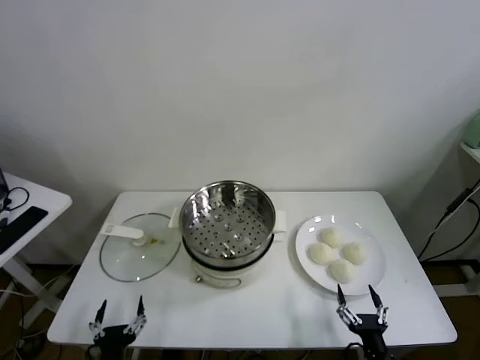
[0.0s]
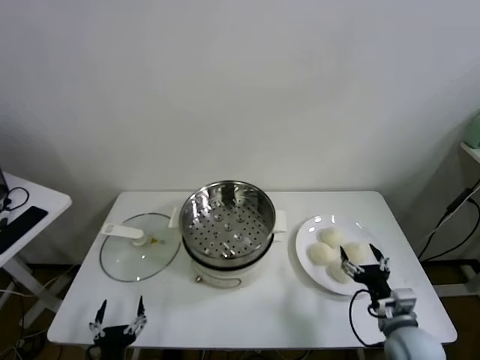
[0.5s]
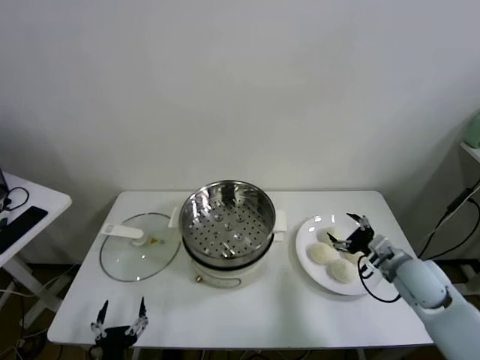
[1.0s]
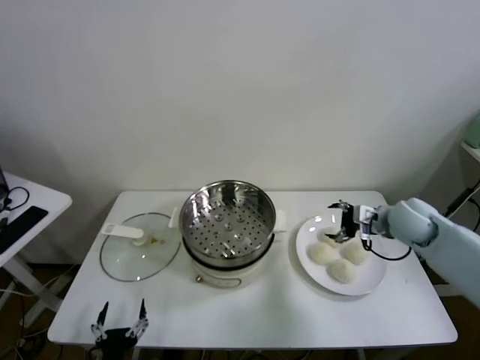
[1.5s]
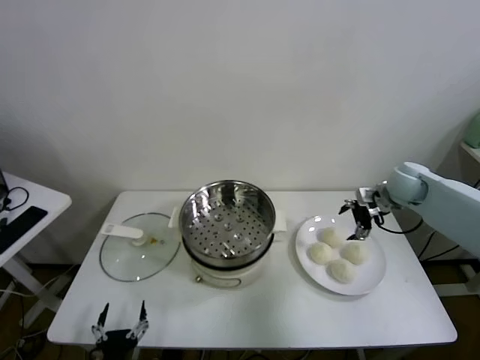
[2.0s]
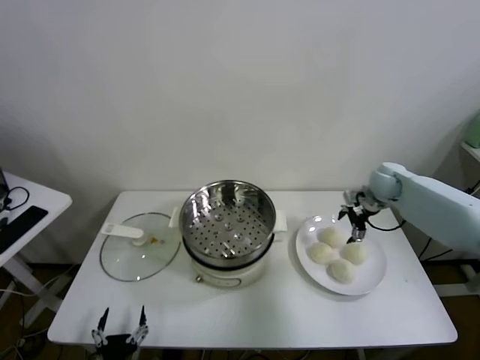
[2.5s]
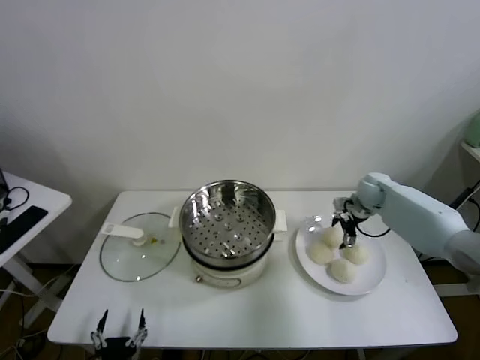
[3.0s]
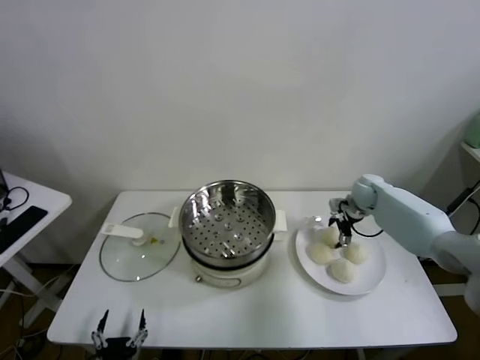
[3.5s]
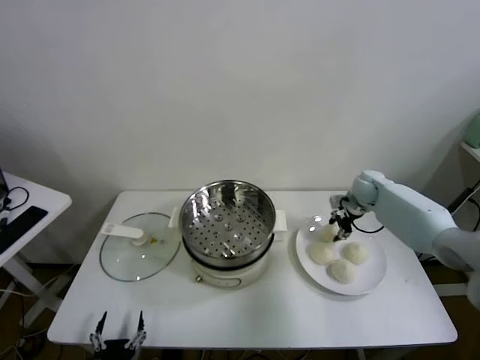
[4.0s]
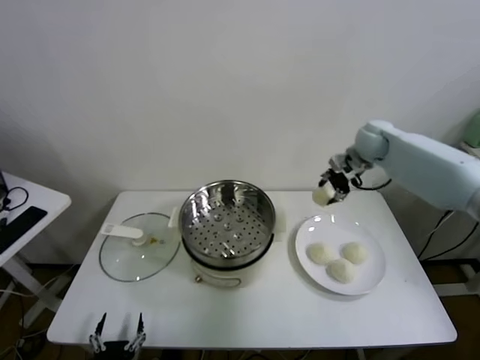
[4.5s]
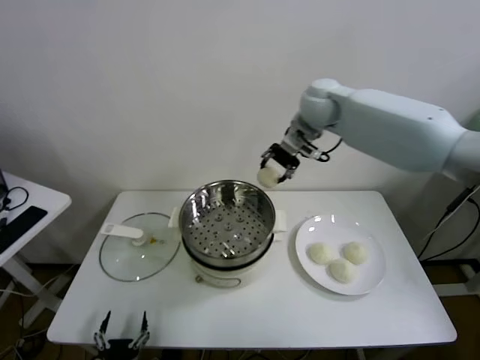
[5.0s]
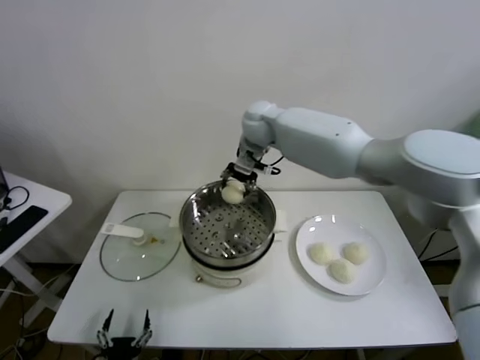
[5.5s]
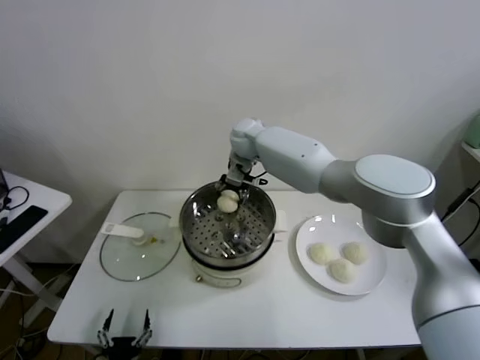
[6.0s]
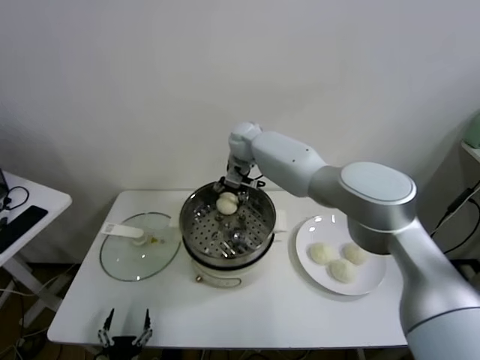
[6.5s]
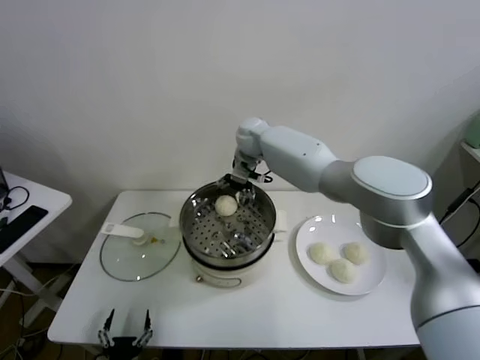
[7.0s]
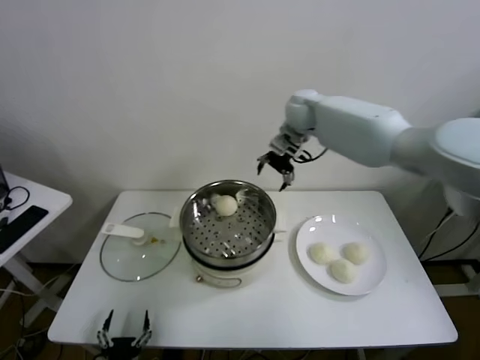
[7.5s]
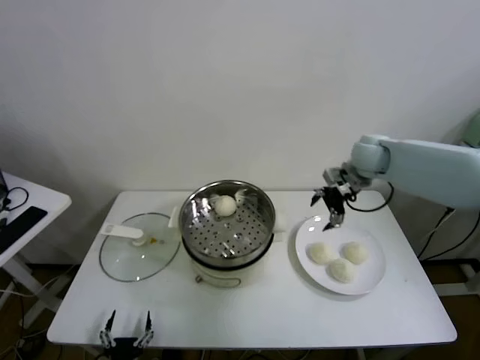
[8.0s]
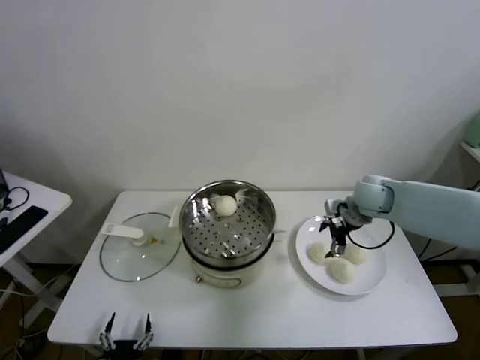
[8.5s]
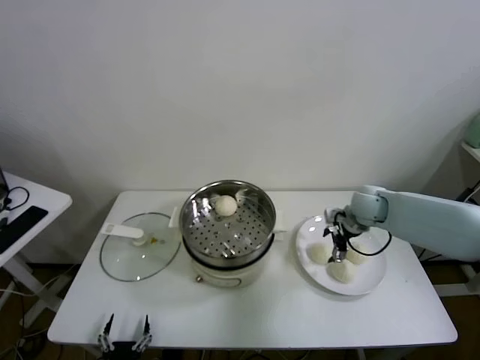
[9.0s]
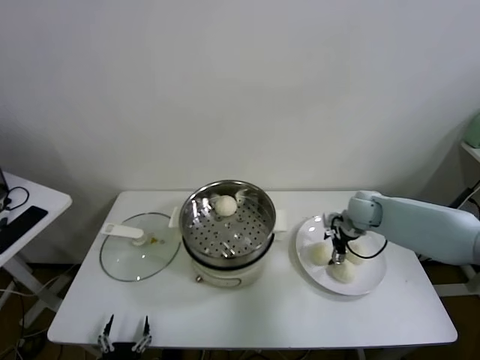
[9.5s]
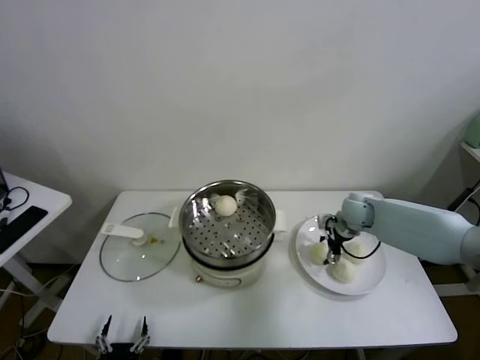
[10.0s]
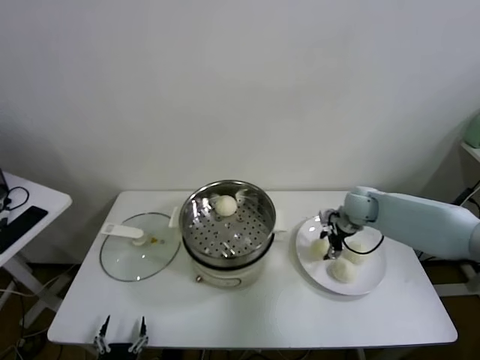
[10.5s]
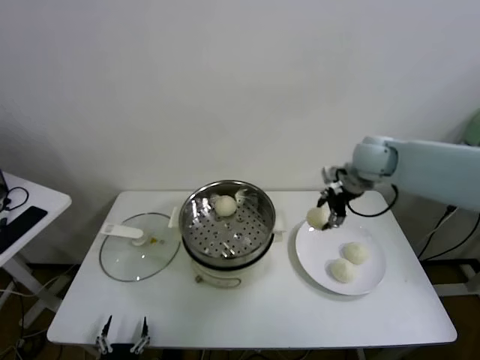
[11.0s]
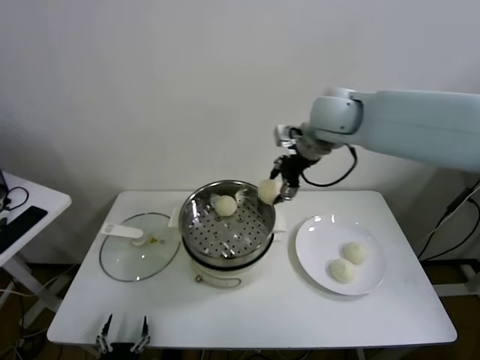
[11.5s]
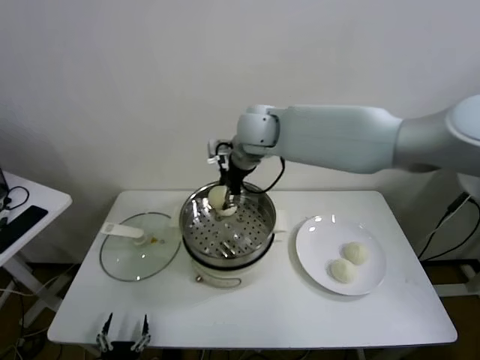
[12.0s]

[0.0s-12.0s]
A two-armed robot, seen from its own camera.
Task of the whole recording: take steamed baozi put them in steamer.
Step, 0.0s to 3.5s: Grasp the baozi in the plate with right gripper.
Step, 4.0s to 6.5s: Place the baozi on the steamer with right gripper.
Step, 7.0s to 10.0s: Grasp the baozi in the plate with right gripper.
2.0s to 4.0s: The right gripper goes approximately 10 cm downward and forward, and closes.
4.0s to 6.0s: The right gripper travels to the left by about 35 cm.
6.0s to 8.0s: The right gripper moves to the right, roughly 30 cm, and opens up.
8.0s to 10.0s: The right gripper shifts some 15 cm downward, and closes.
10.0s to 12.0s: The right gripper is displaced to the left and upward by roughly 35 cm.

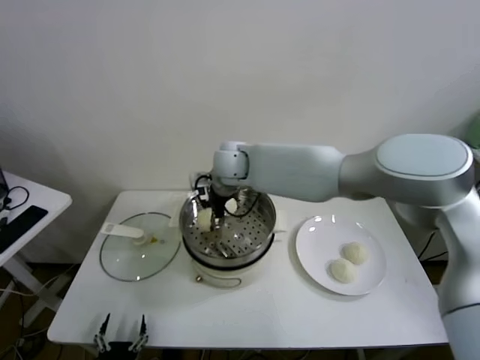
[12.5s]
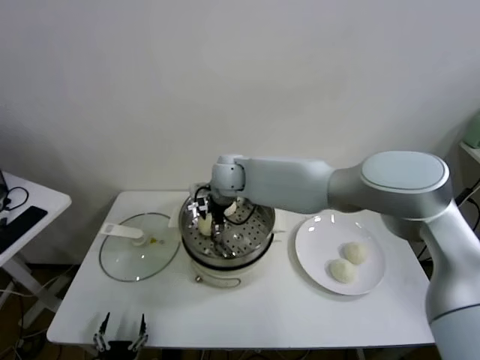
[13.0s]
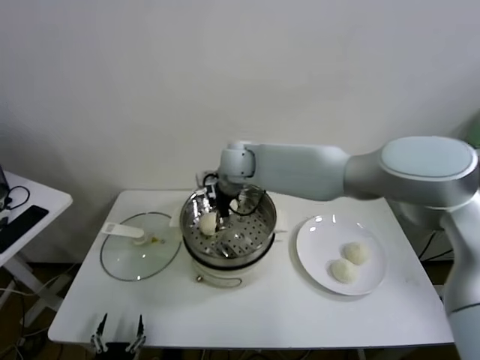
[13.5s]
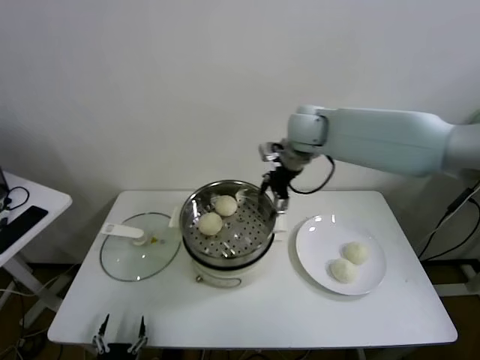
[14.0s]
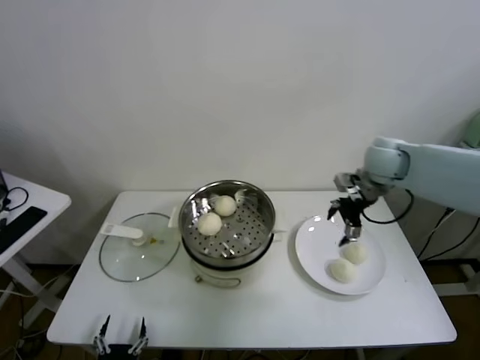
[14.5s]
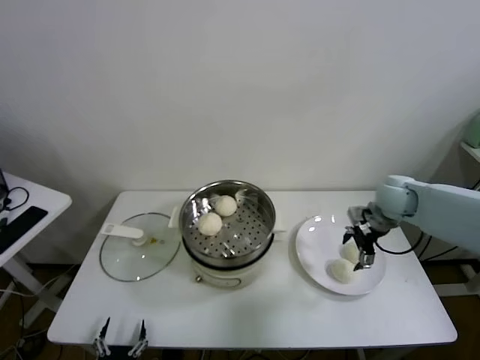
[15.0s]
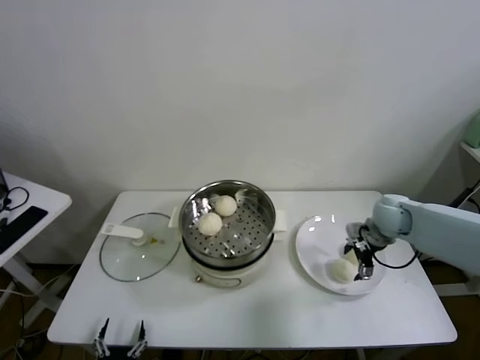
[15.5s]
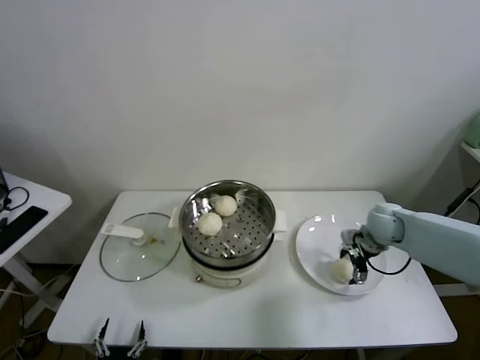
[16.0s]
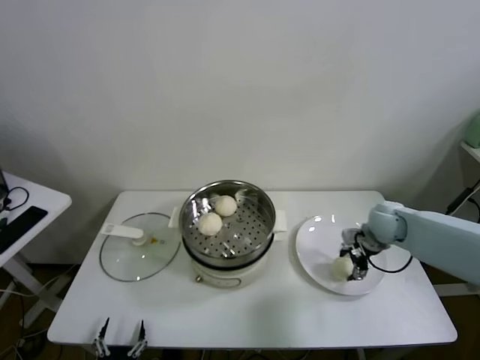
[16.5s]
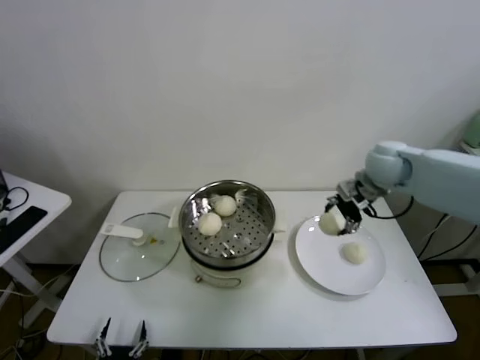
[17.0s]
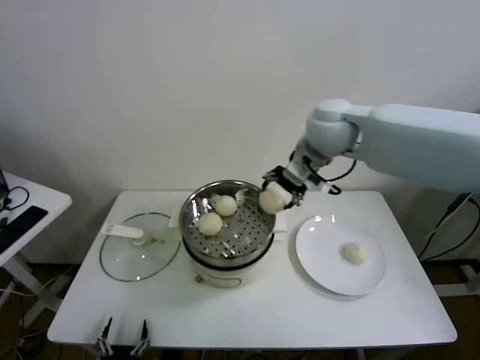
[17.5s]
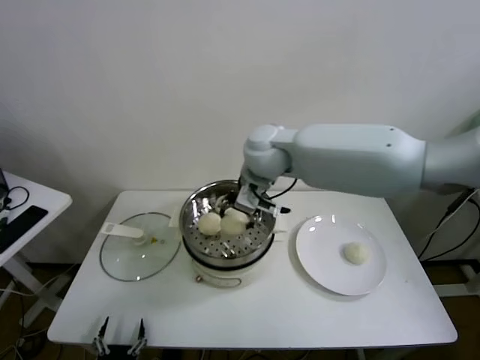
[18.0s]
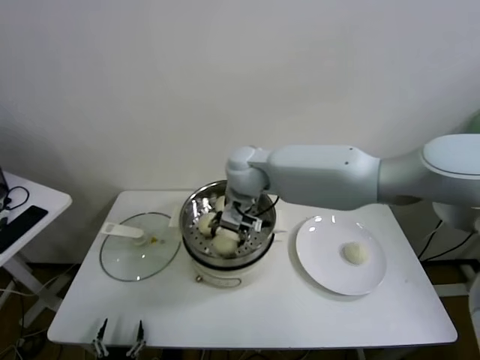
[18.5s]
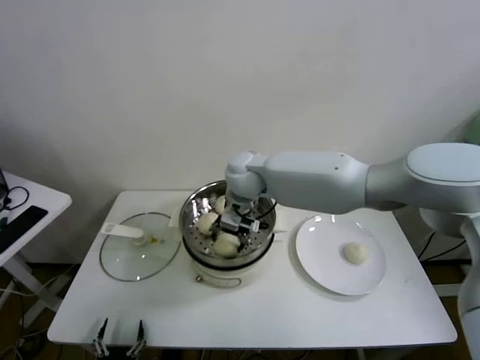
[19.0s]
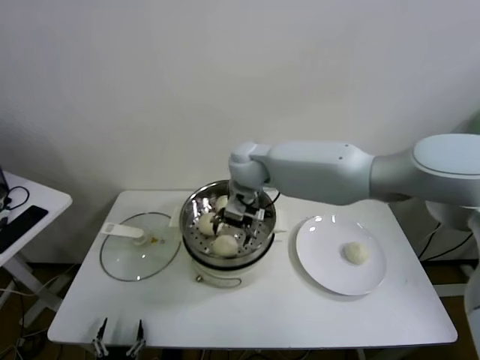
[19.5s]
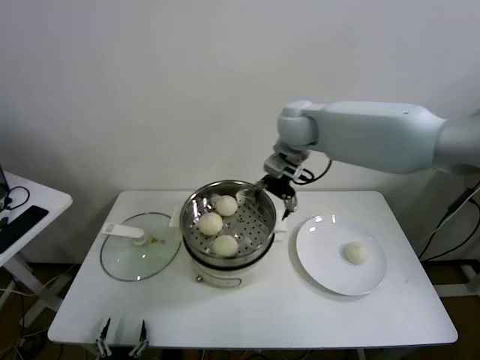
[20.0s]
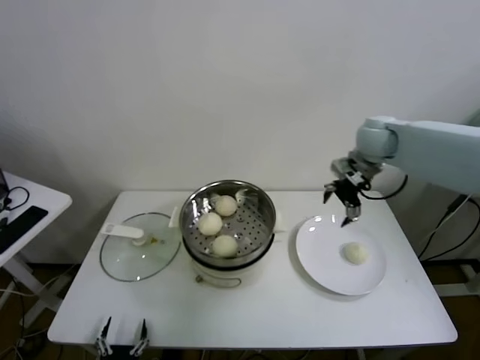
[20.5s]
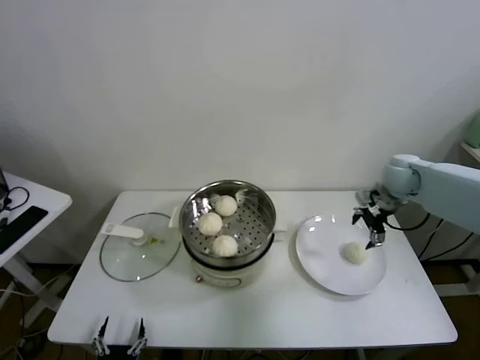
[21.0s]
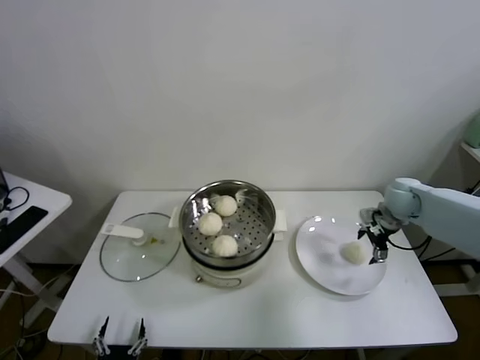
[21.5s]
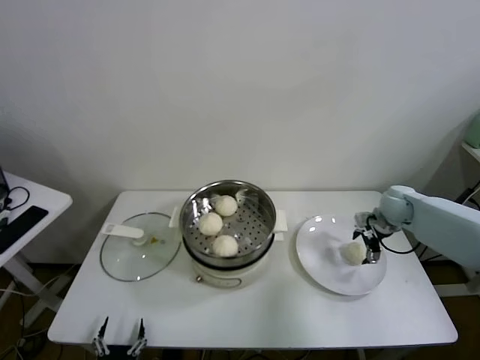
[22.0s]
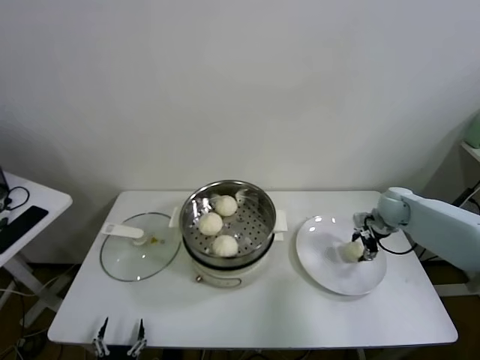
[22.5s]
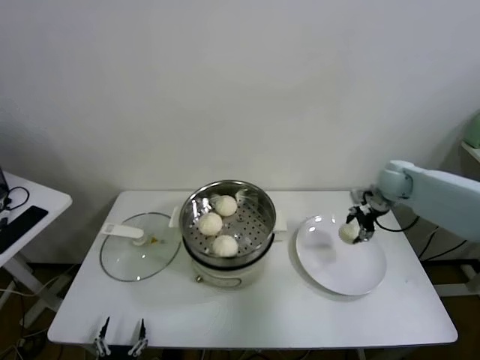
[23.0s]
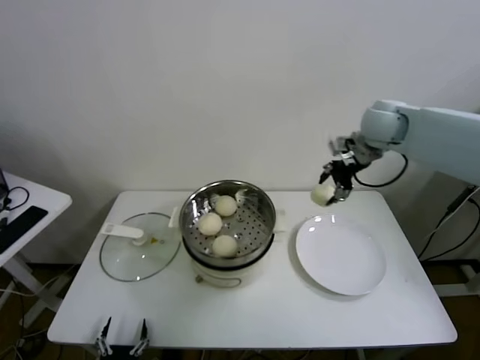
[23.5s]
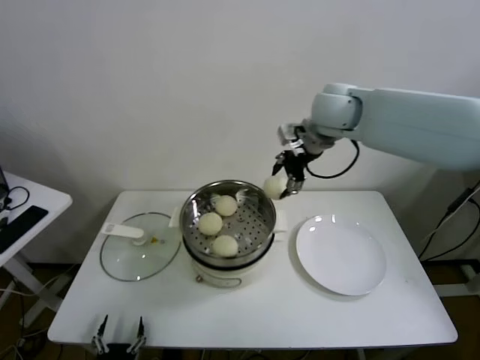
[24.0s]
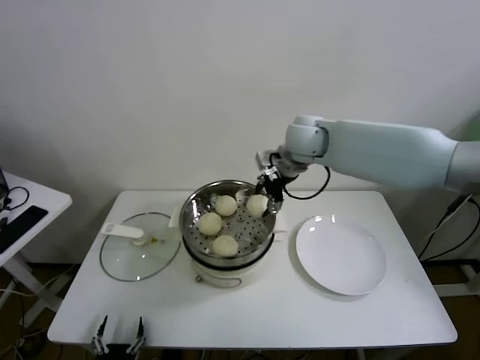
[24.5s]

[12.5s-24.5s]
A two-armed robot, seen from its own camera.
Task of the whole recording: take steamed baozi put them in steamer.
Step, 13.5s to 16.0s: Grasp the baozi in the plate with right gripper.
Step, 16.5s to 19.0s: Place the baozi on the steamer with right gripper.
Step, 19.5s to 22.5s: Grasp the baozi in the plate with right gripper.
12.5s to 14.5s: The right gripper travels to the right by roughly 35 cm, and opens.
14.5s to 16.5s: The right gripper shifts about 15 cm downward, and closes up.
16.5s to 18.5s: The right gripper heads to the left and upward, covering approximately 40 cm.
18.5s to 20.5s: The right gripper moves to the right, roughly 30 cm, and opens up.
20.5s to 22.5s: The right gripper goes roughly 20 cm downward and to the right, and closes.
22.5s to 24.5s: The right gripper moves to the left and upward, about 35 cm.

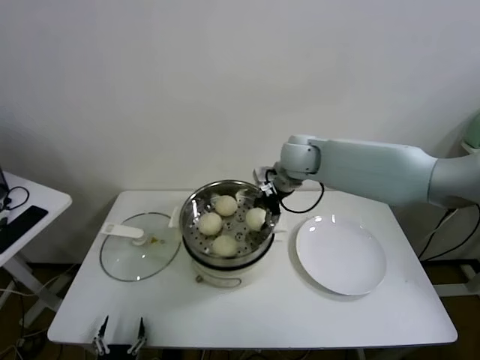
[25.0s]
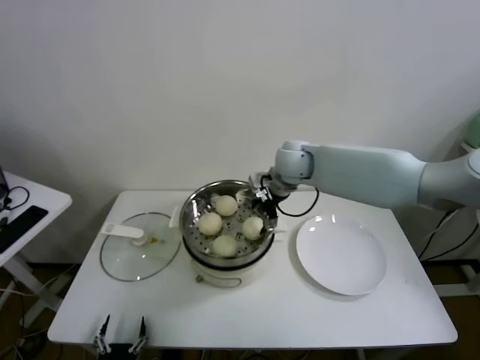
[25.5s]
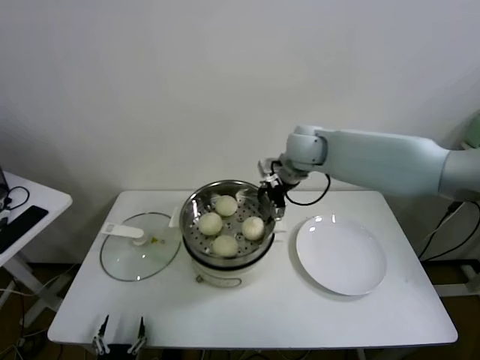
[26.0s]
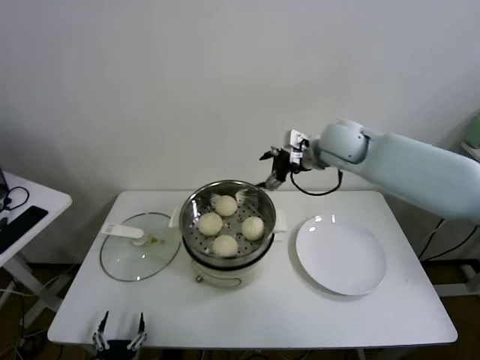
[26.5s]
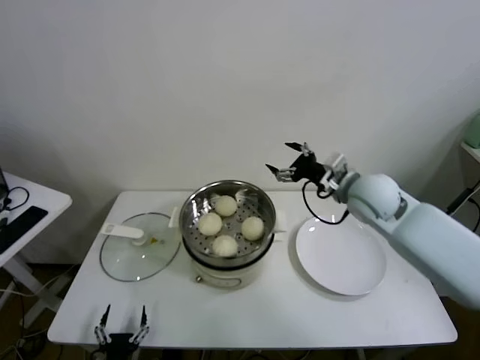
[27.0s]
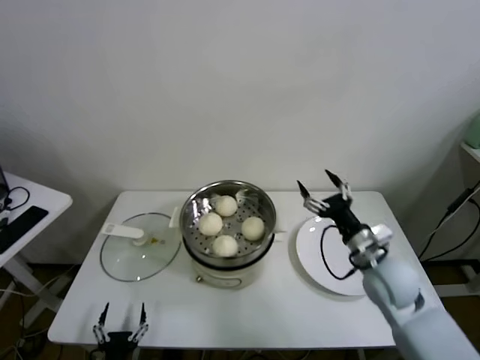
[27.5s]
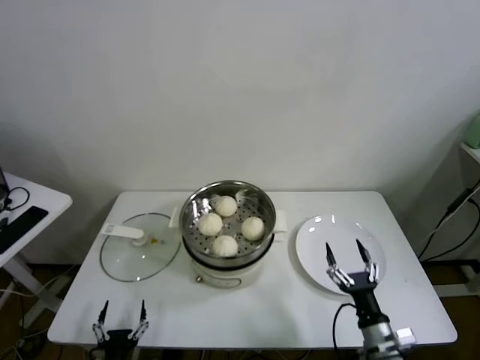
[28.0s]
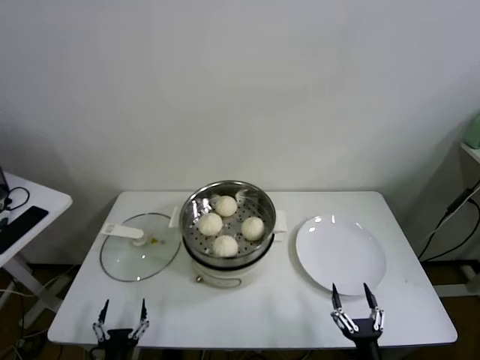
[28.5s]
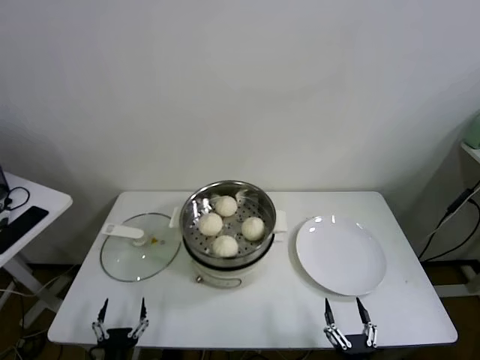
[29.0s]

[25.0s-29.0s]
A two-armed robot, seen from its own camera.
Task of the whole recording: take steamed baozi put them in steamer.
25.0s to 27.0s: The right gripper shifts some 15 cm to the right and backward, and opens its fingers.
27.0s to 29.0s: The right gripper travels backward and downward by some 50 cm.
